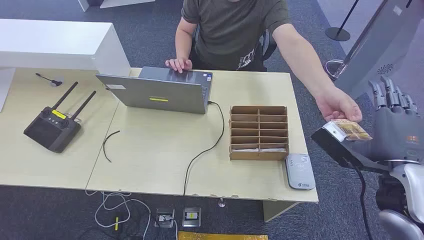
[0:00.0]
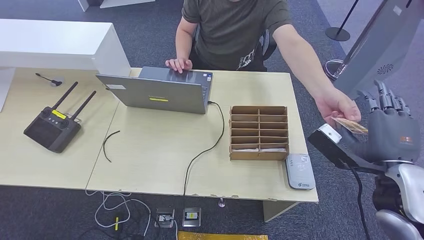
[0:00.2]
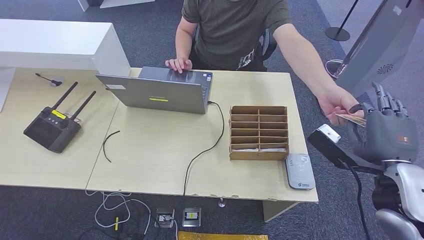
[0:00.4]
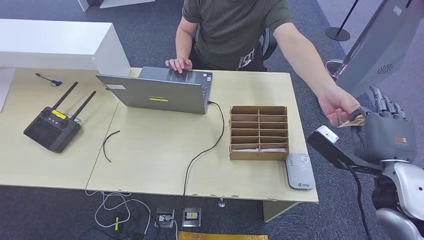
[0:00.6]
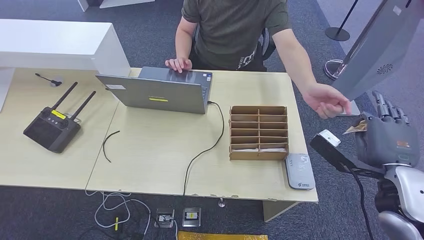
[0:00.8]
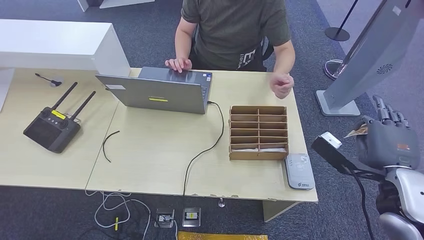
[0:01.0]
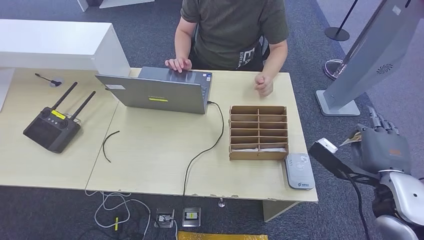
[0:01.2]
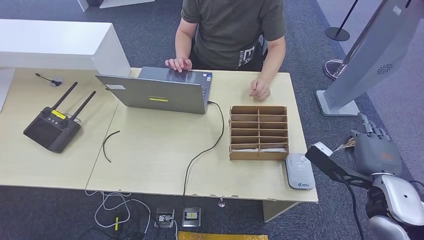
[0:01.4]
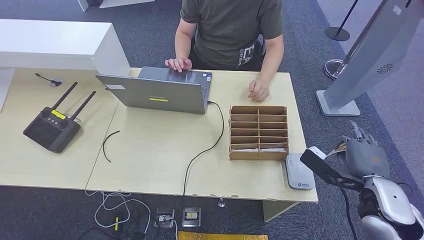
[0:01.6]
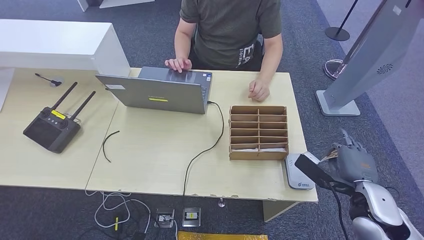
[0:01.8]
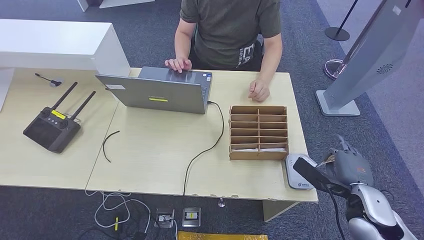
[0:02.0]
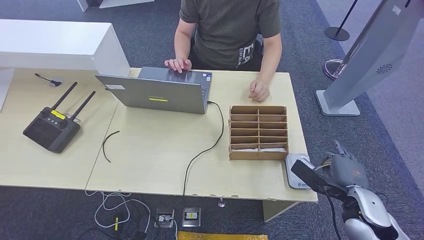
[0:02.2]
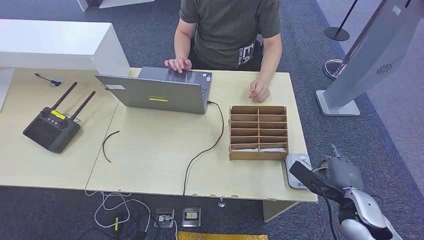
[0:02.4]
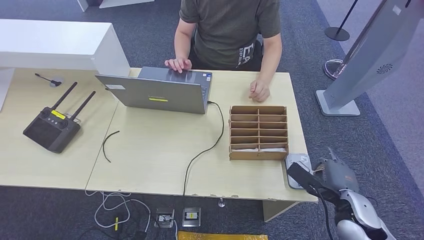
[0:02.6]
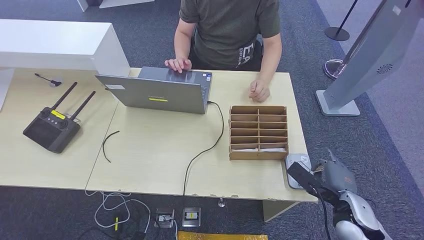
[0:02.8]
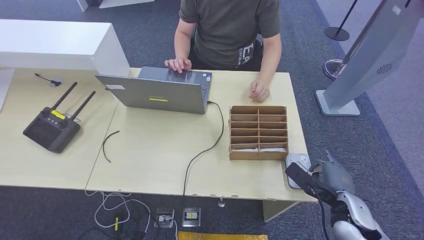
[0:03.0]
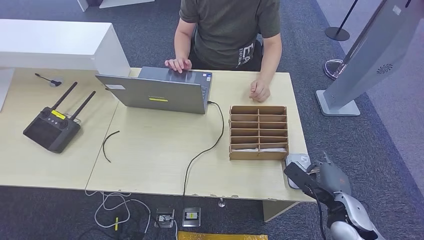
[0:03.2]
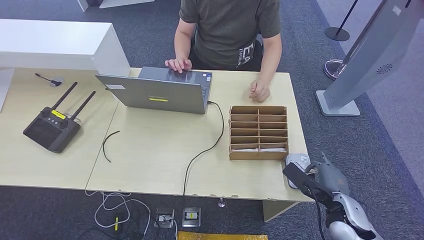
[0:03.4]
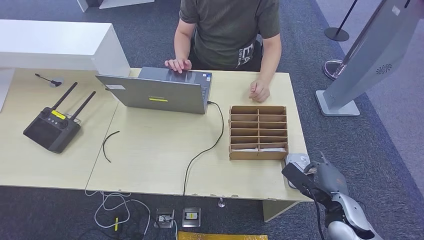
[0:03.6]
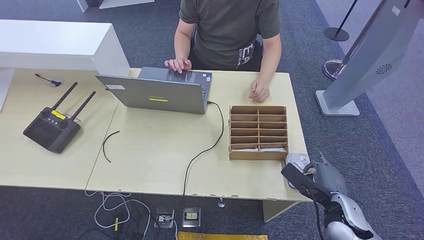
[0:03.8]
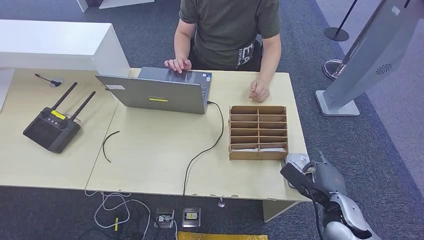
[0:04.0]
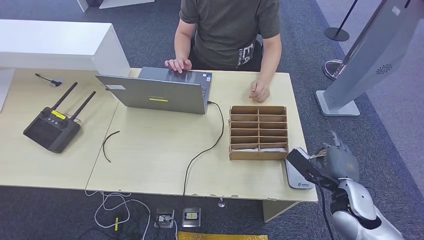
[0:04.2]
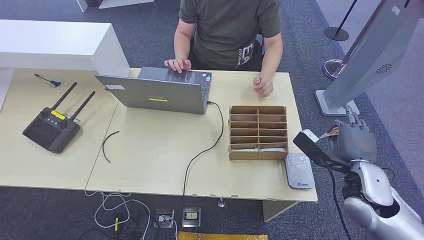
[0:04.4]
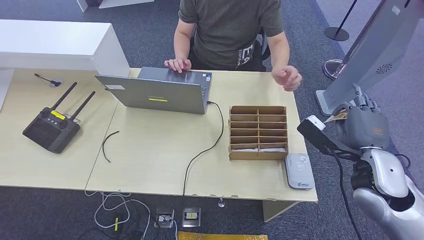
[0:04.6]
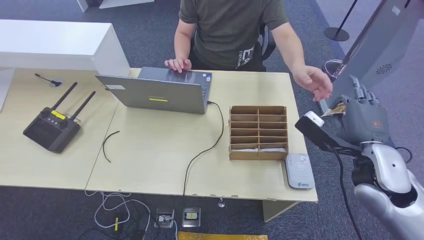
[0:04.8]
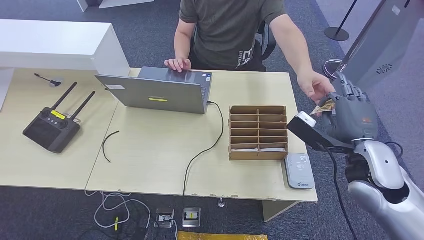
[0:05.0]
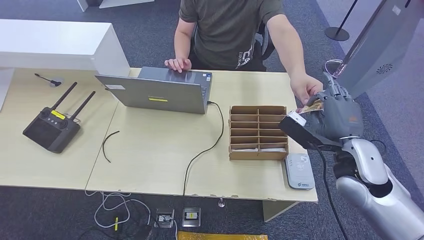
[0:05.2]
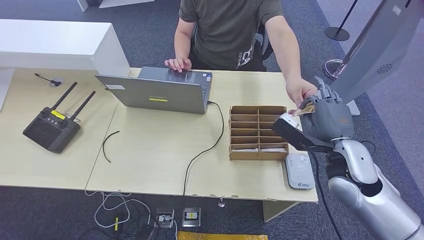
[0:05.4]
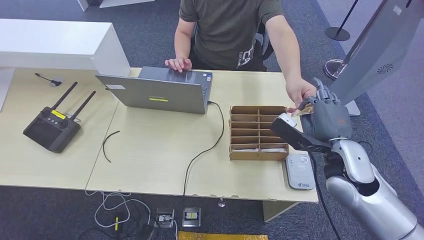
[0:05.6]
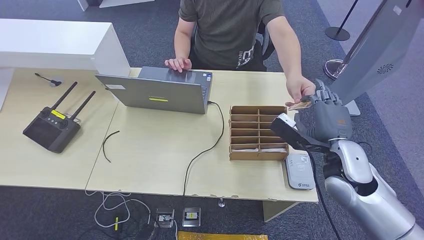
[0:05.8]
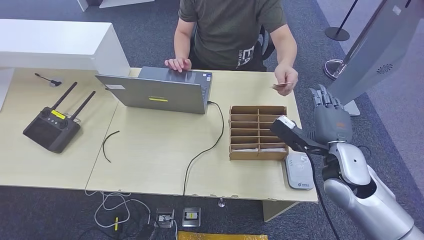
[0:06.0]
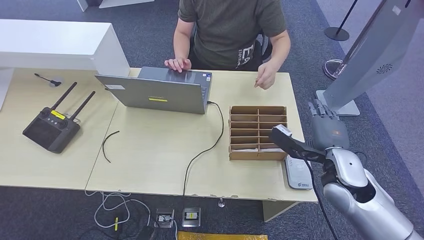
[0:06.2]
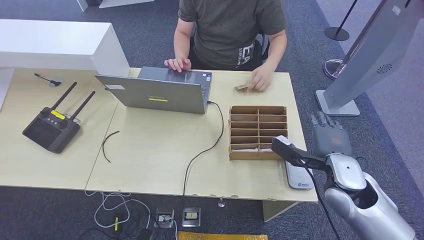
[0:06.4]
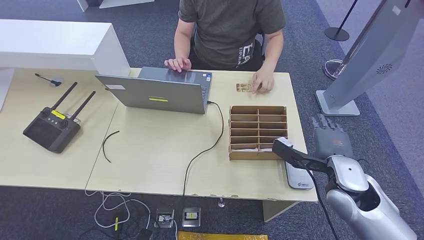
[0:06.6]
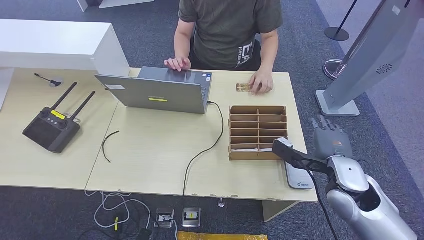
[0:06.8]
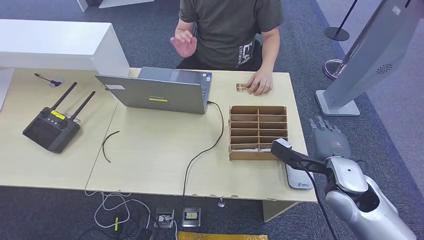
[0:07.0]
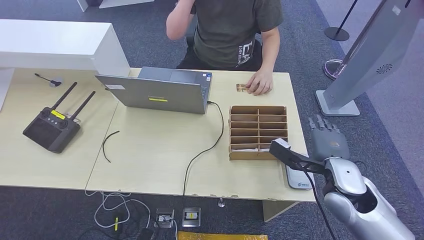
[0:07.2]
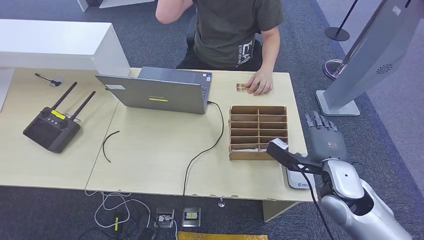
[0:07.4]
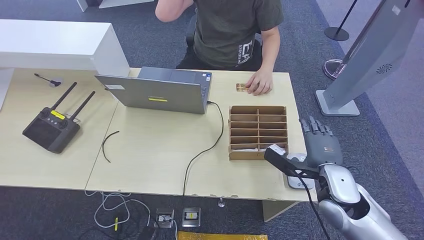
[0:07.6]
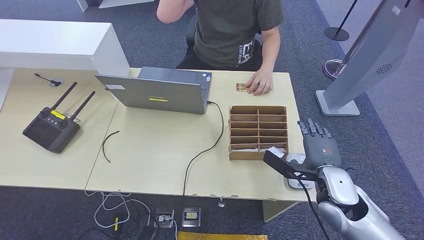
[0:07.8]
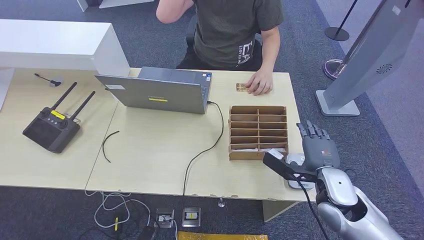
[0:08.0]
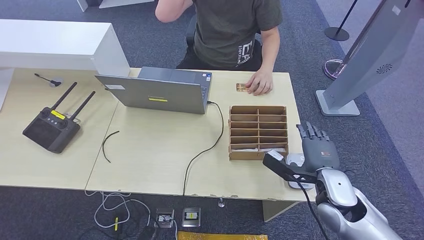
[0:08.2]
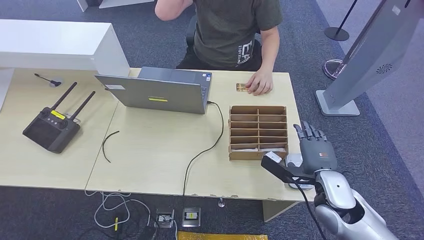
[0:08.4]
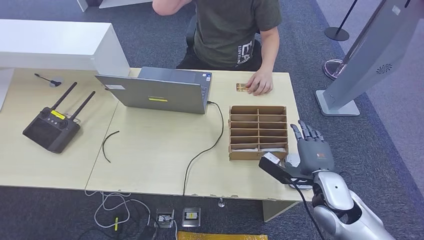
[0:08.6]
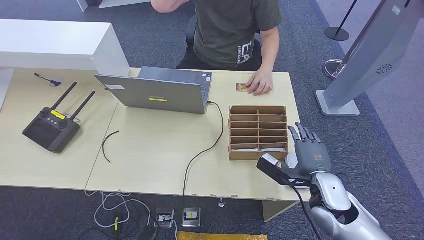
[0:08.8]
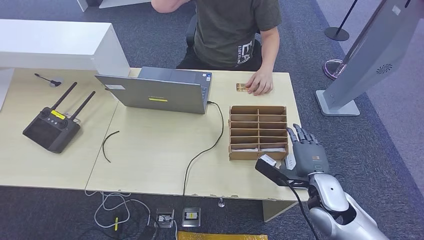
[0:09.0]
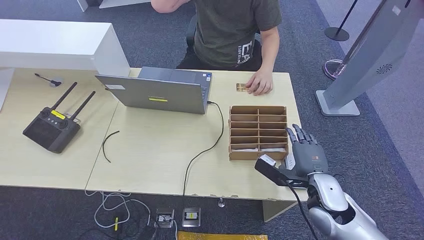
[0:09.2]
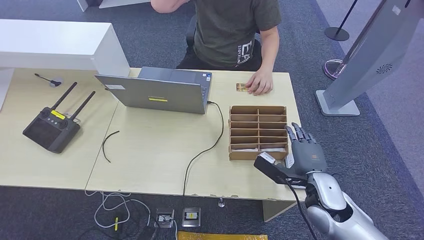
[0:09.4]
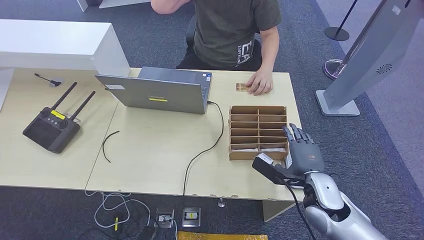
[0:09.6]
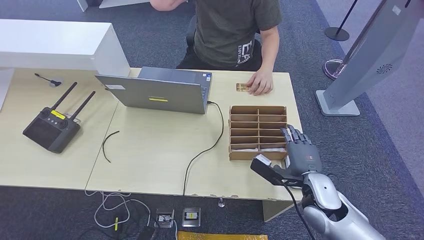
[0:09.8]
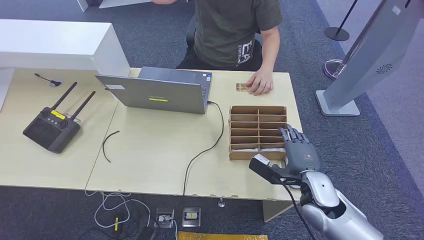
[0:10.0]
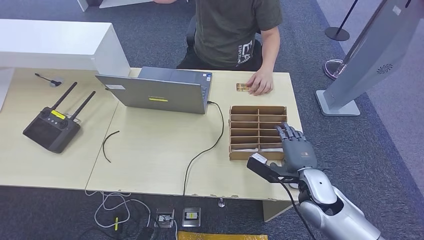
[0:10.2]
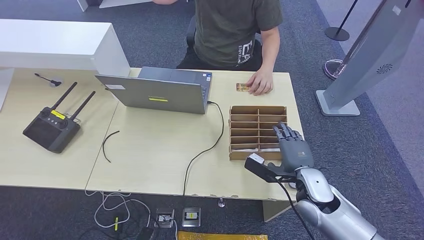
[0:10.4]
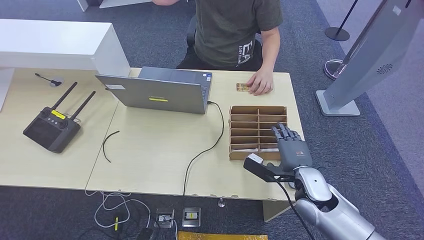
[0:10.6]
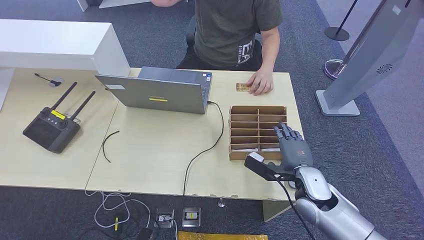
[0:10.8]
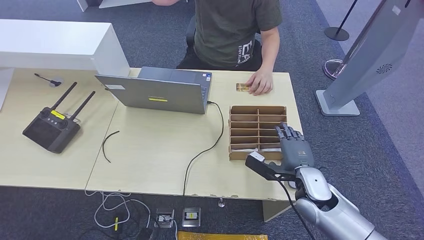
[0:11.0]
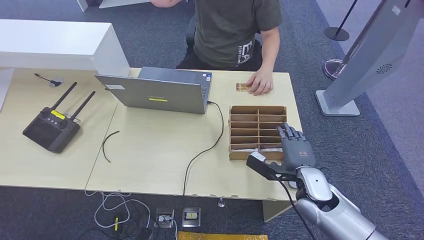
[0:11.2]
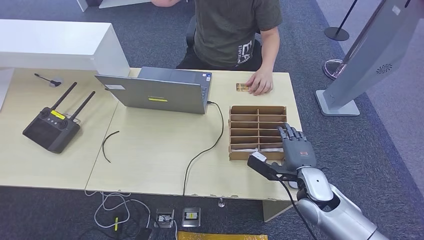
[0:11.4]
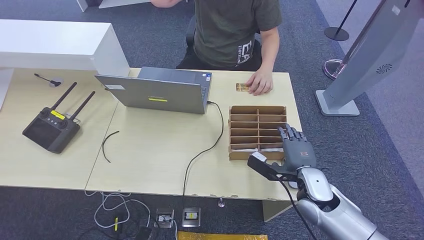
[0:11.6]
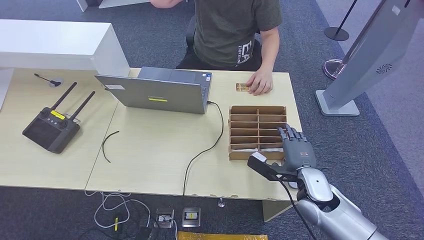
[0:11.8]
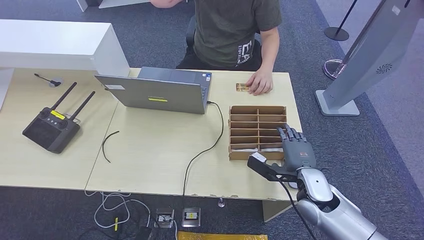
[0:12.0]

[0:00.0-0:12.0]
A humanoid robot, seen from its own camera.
Step, 0:00.0 to 0:00.8: Take the ID card from the person's hand.
Step, 0:01.0 to 0:03.6: Place the ID card on the card reader.
Step, 0:04.0 to 0:05.8: Hand the ID card to the person.
0:01.6 to 0:03.0: The right hand goes roughly 10 cm downward.
0:03.0 to 0:04.4: The right hand travels upward by approximately 10 cm.
0:04.4 to 0:06.0: The right hand shifts roughly 5 cm to the left.
0:06.0 to 0:07.6: The right hand shifts by approximately 5 cm.
0:07.6 to 0:10.4: The hands make only small movements.
0:10.4 to 0:12.0: Both hands stay about where they are.

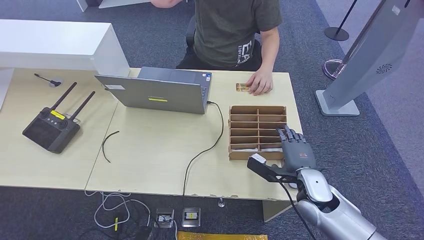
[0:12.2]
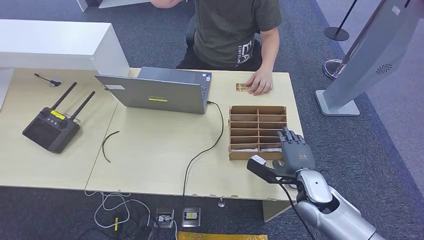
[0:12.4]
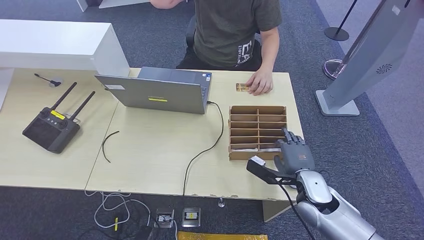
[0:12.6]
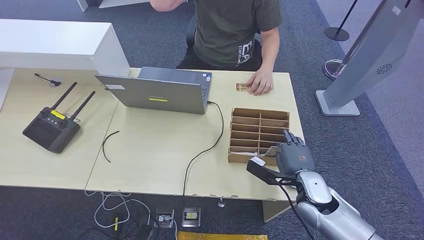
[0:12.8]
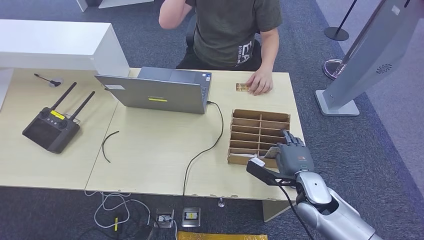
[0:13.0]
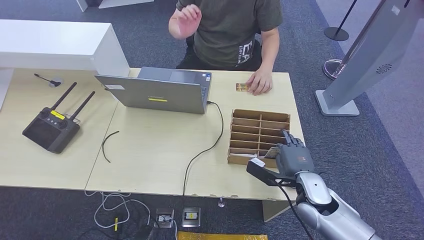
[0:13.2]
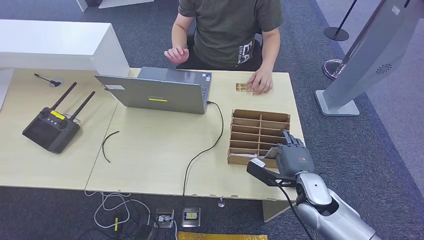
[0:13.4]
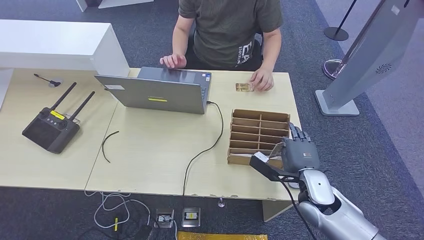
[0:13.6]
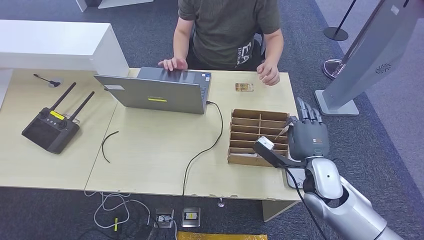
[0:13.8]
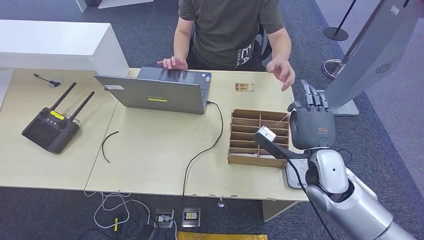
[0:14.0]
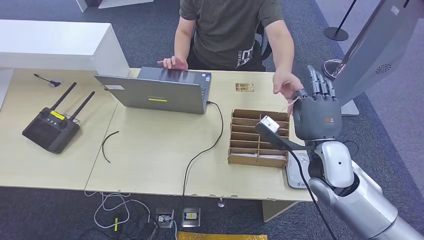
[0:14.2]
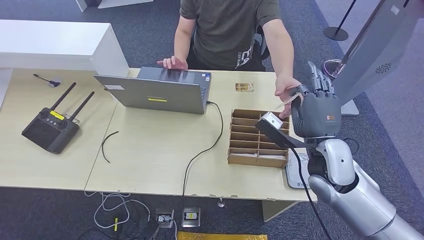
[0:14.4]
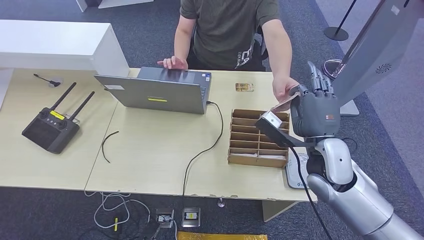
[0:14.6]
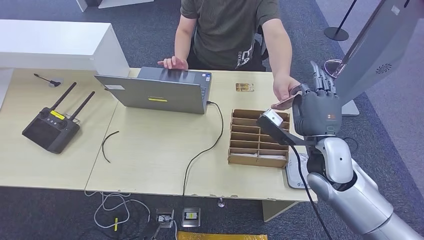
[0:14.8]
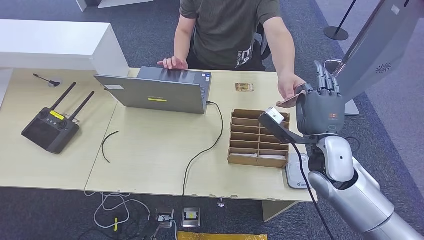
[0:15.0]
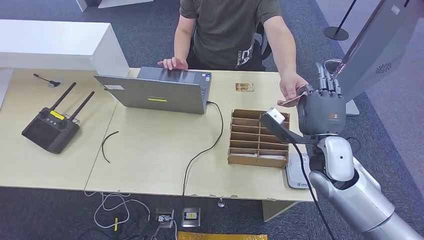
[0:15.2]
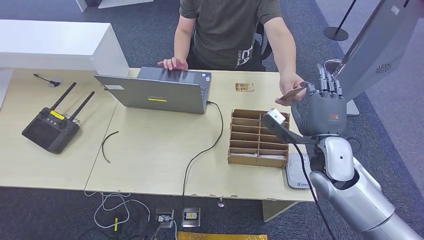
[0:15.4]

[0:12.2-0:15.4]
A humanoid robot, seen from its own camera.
Step, 0:13.8 to 0:15.4: Hand the room key to the person.
0:12.2 to 0:13.8: The hands stay close to where they were, moving slightly.
0:13.8 to 0:15.4: The right hand moves upward, roughly 5 cm.
